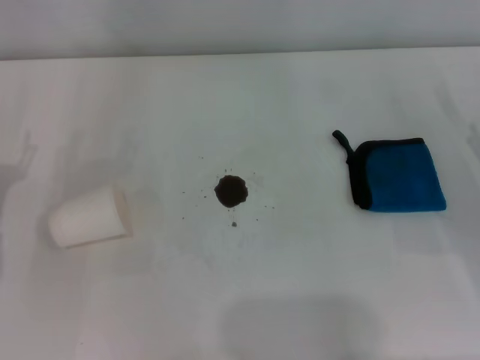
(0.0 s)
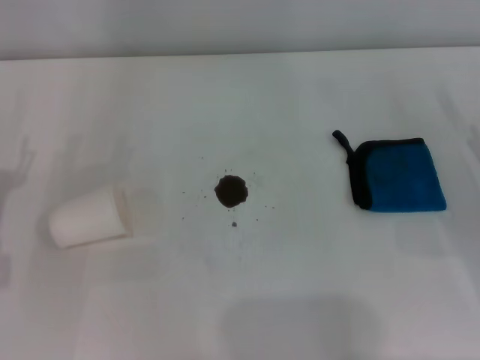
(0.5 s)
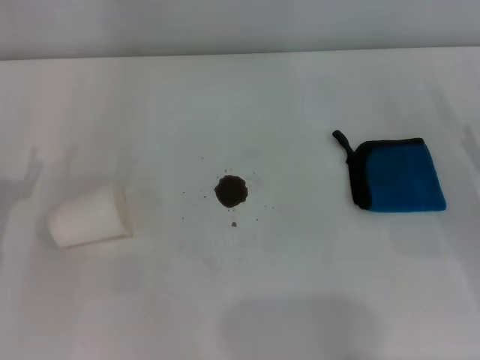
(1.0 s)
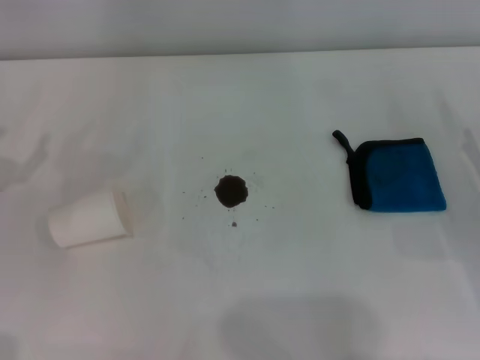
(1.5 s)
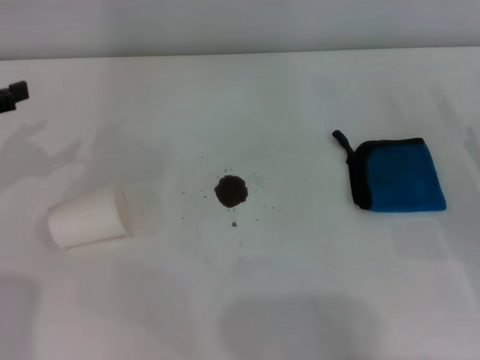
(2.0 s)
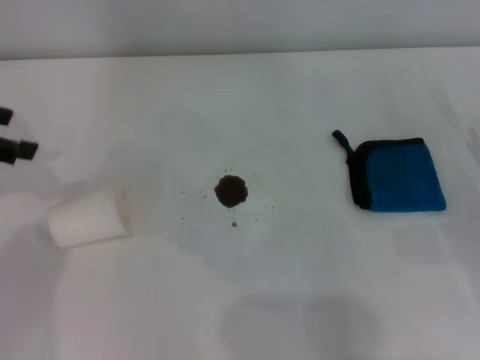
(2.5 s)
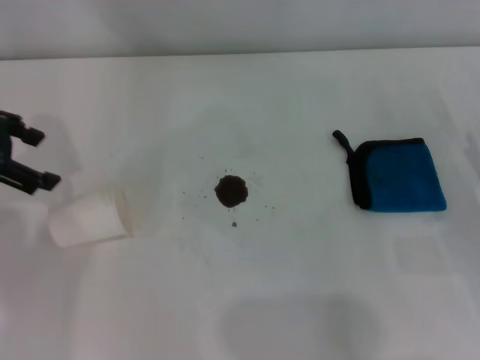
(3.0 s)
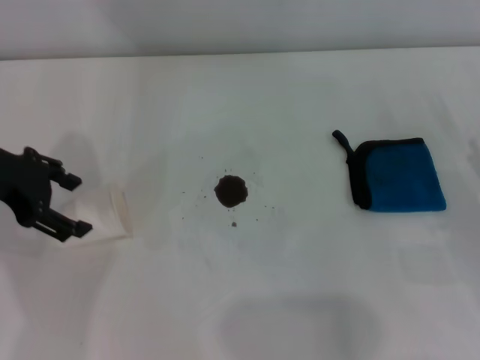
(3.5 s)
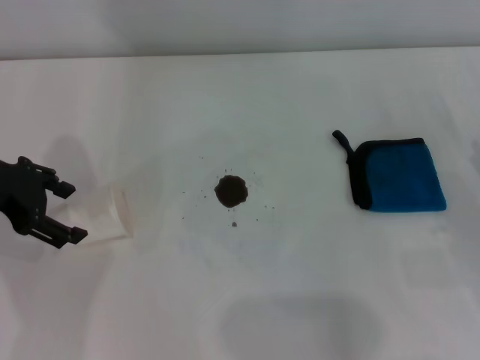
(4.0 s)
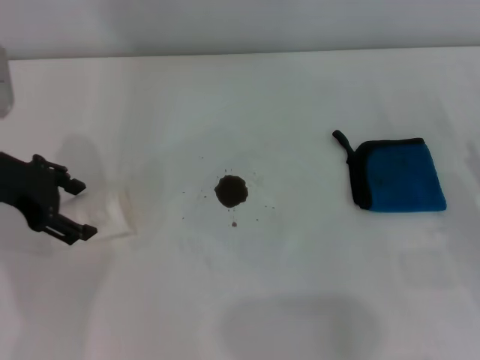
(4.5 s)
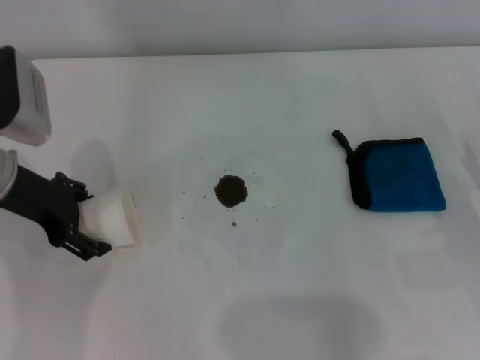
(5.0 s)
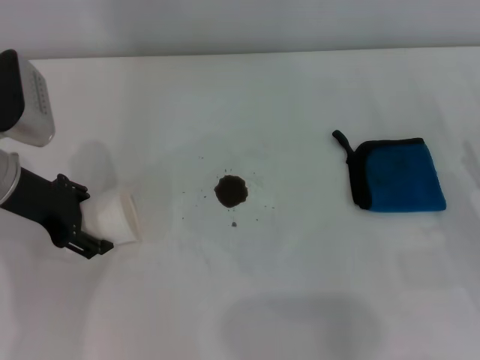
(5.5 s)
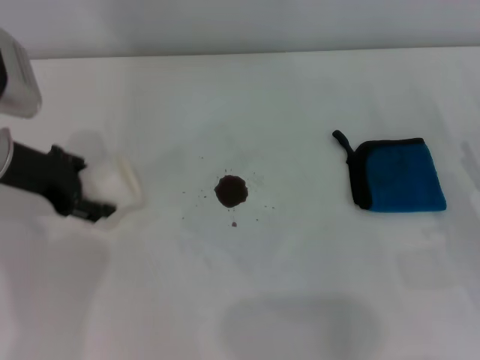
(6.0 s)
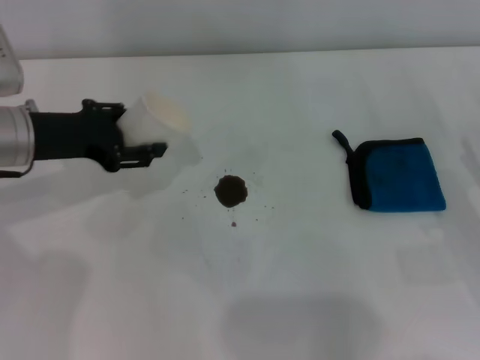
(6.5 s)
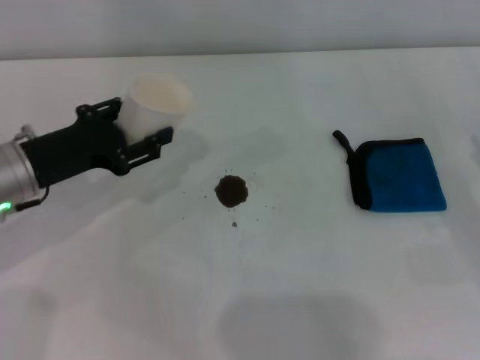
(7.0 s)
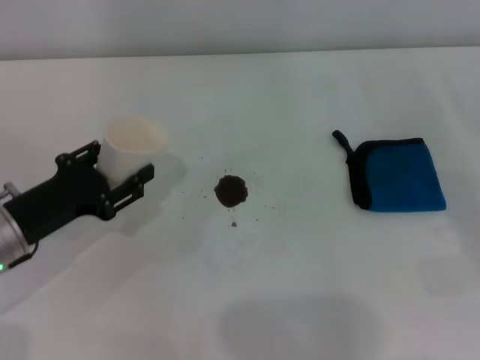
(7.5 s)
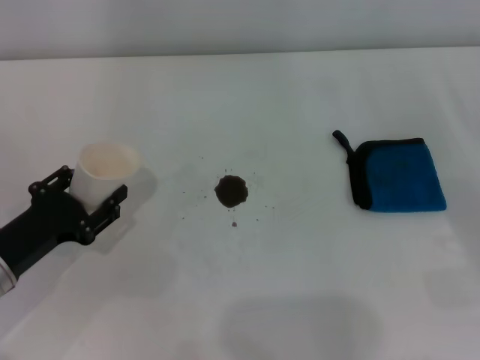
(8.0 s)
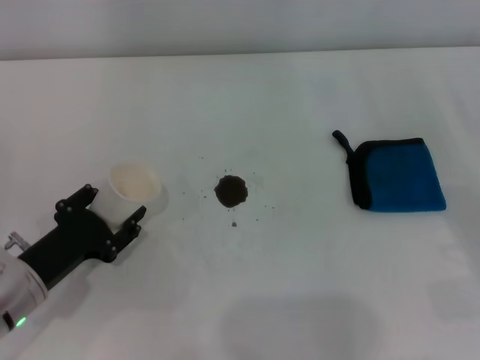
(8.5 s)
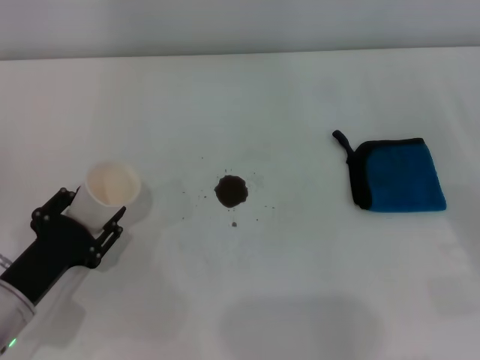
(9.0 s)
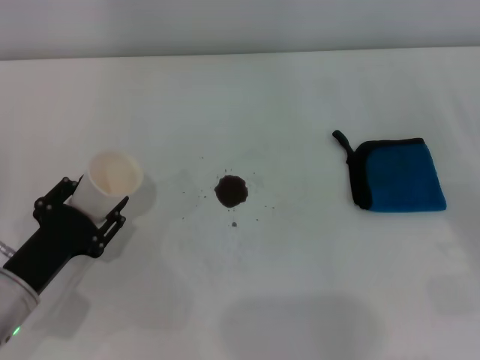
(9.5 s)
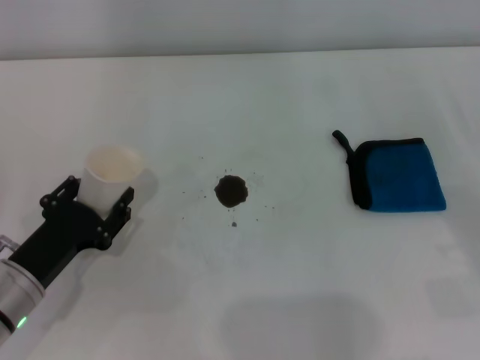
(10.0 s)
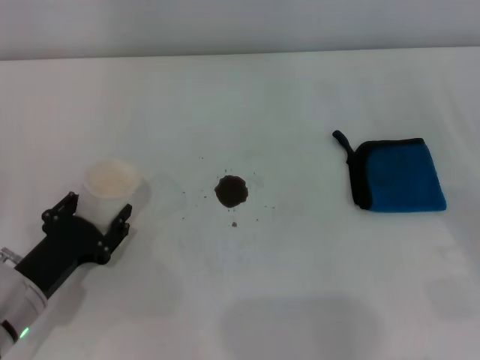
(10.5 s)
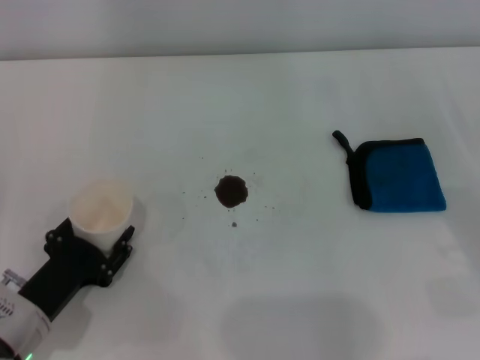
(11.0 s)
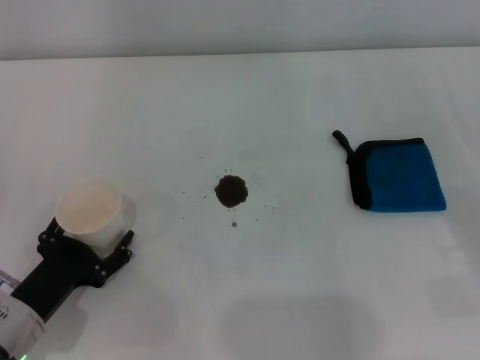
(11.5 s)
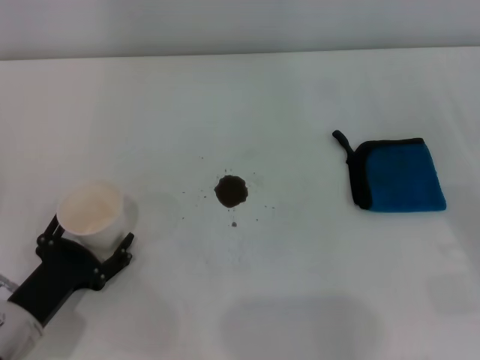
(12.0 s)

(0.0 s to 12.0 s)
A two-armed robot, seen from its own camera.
Step, 0.0 s - 5.5 s: Grasp the paper cup with the left gripper.
Step, 6.0 s - 11.5 s: Stand the paper cup upright with the left gripper.
2.0 s - 4.0 s: The left gripper travels to the right by approximately 10 cm.
4.0 s - 6.0 s: The grippers stay close to where they were, moving slightly.
6.0 s - 8.0 s: The left gripper shifts roughly 15 cm backward and downward, and closes.
8.0 s - 10.0 s: The grippers move only a little.
10.0 s - 12.0 s: The left gripper opens up.

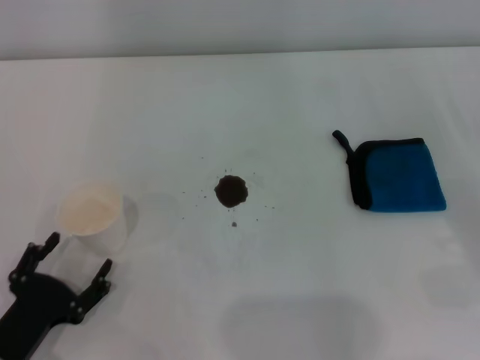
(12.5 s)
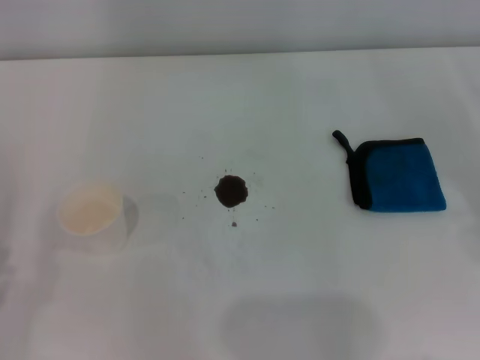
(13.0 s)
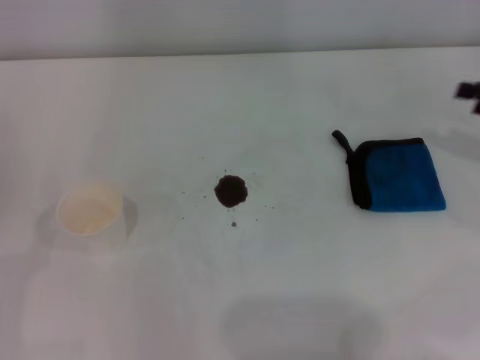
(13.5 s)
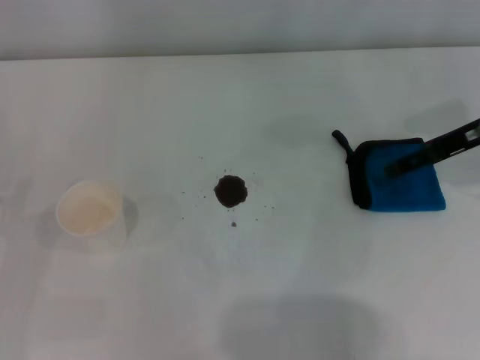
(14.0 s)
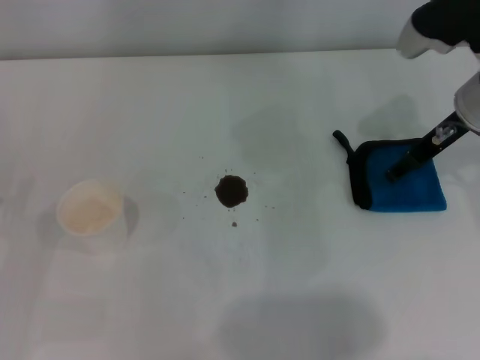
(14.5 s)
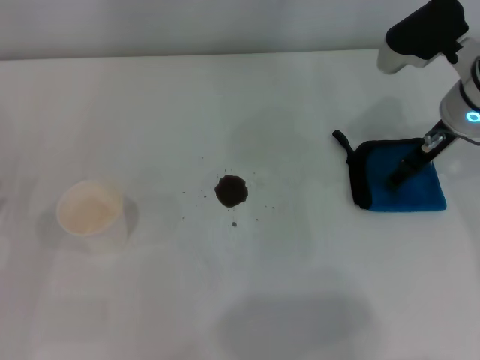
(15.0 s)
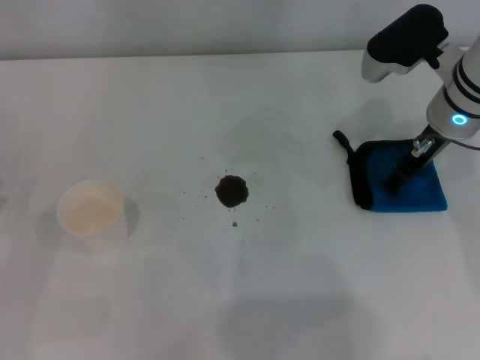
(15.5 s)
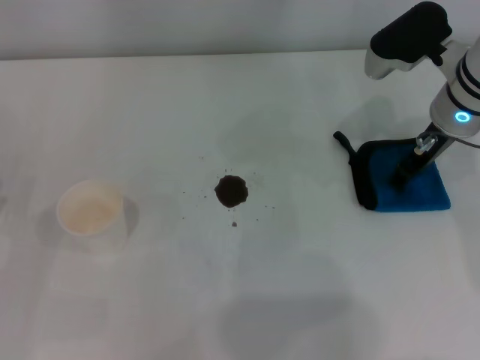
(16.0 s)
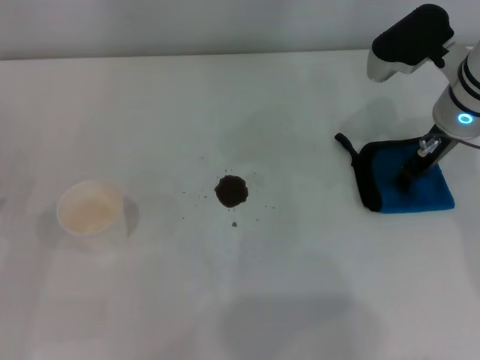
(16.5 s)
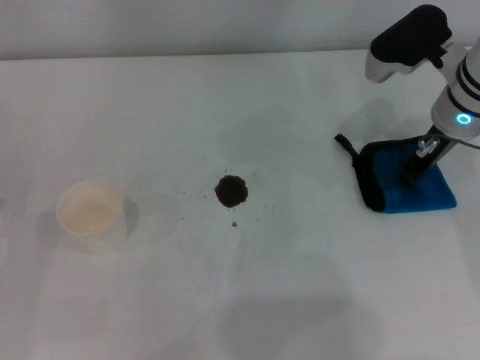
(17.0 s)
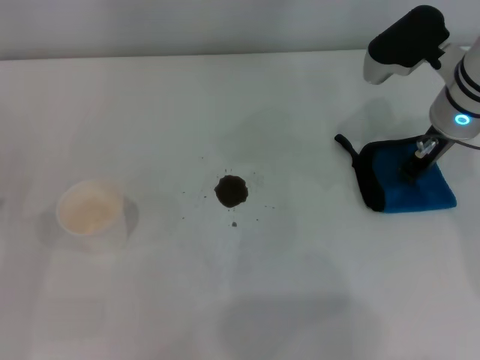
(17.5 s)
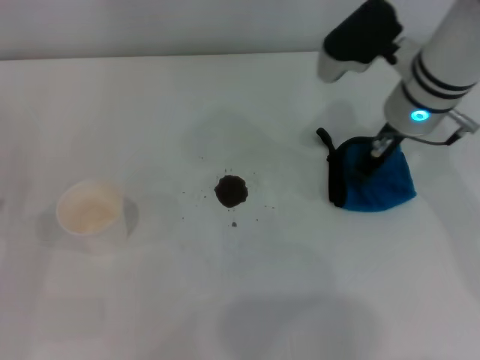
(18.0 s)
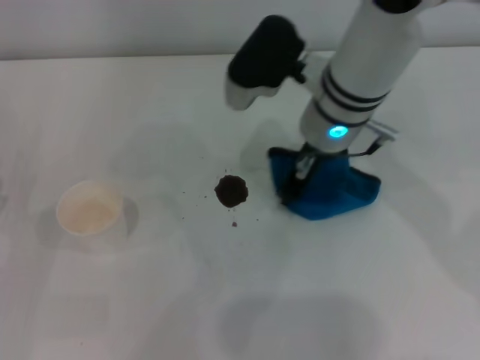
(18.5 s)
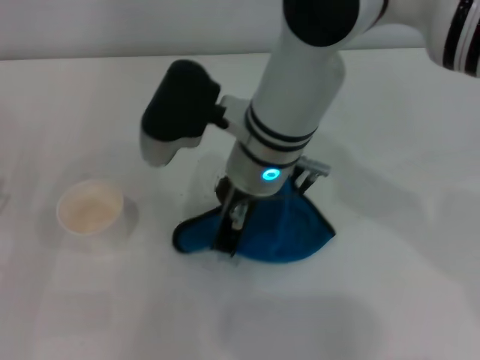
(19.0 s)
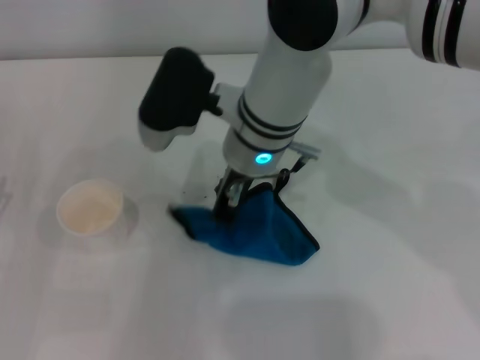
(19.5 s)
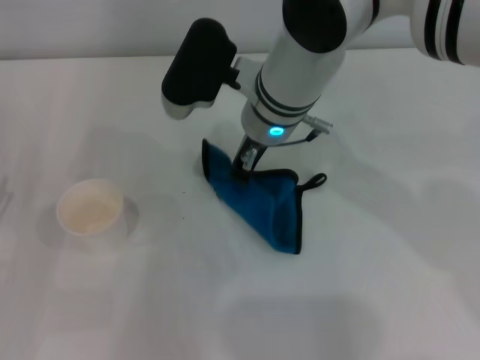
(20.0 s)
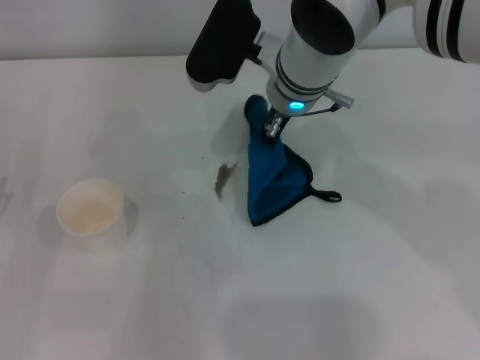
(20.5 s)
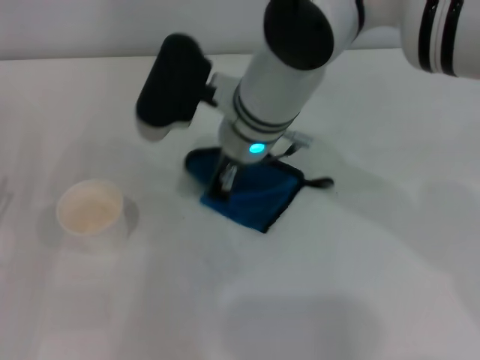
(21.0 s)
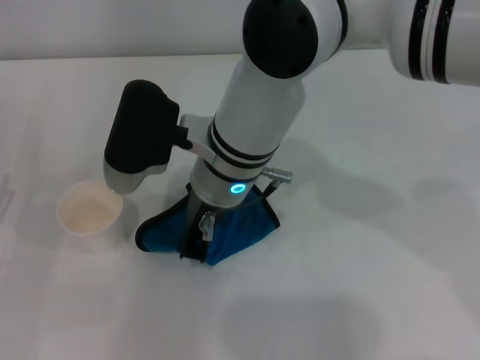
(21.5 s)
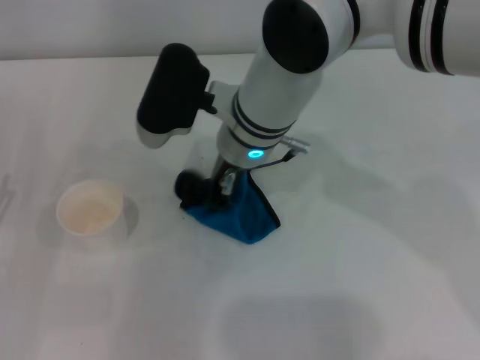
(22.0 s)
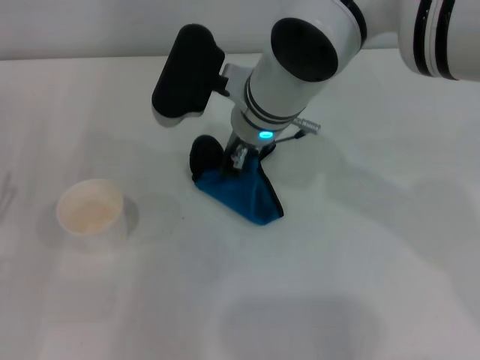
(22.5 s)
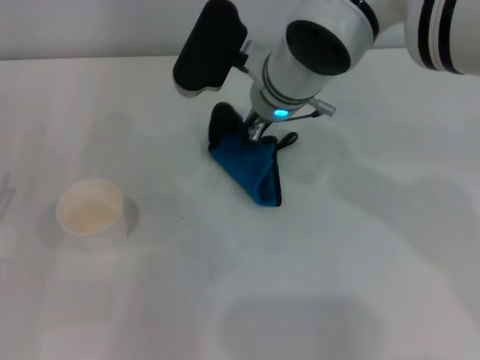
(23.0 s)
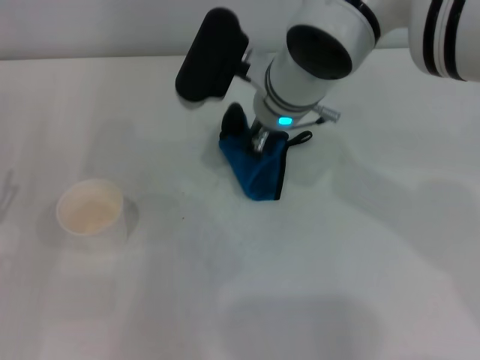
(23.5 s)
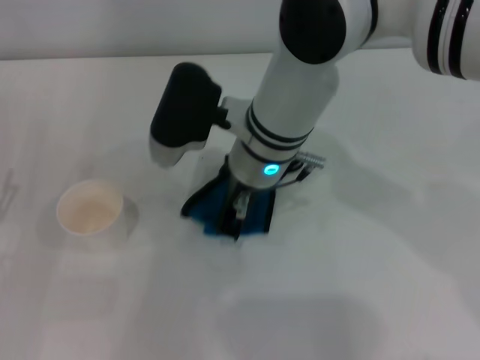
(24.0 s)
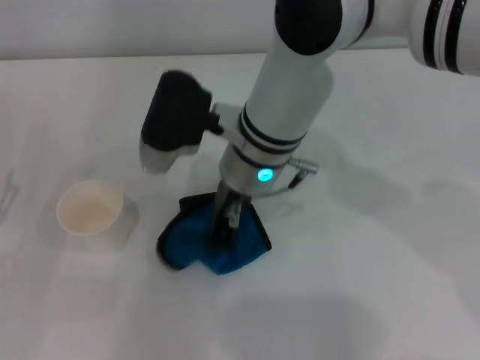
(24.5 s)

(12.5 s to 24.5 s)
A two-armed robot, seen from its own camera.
Step, 12.5 s - 17.0 s: Grasp the rag with the right gripper.
12.5 s - 14.5 s: The right gripper goes about 25 cm forward, to the left and upward; the left gripper moves to the left, upward and forward, some 10 cm.
14.5 s - 16.5 s: The right gripper closes up.
16.5 s - 18.5 s: The right gripper goes about 15 cm to the left, and closes its fingers.
20.5 s - 22.5 s: The right gripper moves some 10 cm backward and comes back.

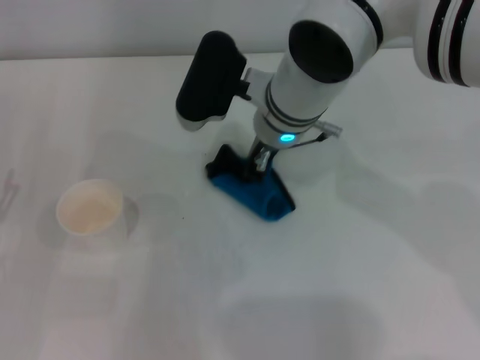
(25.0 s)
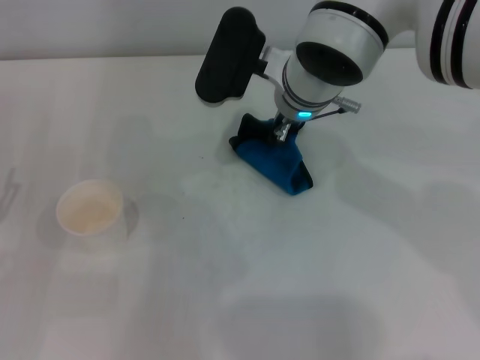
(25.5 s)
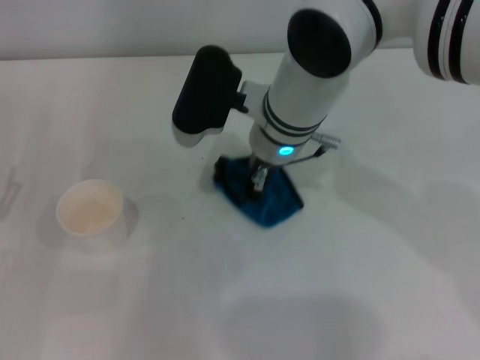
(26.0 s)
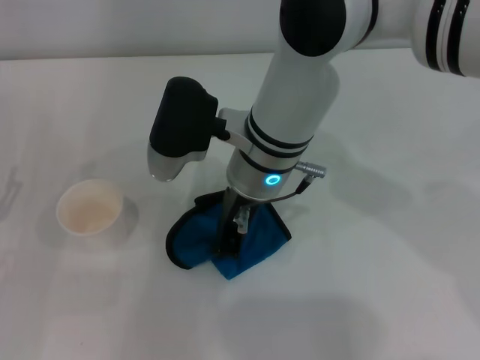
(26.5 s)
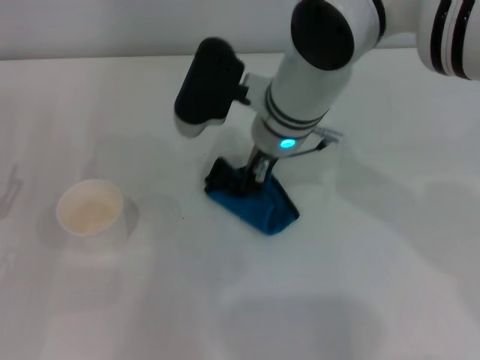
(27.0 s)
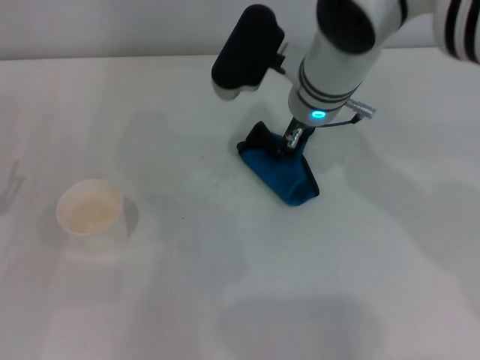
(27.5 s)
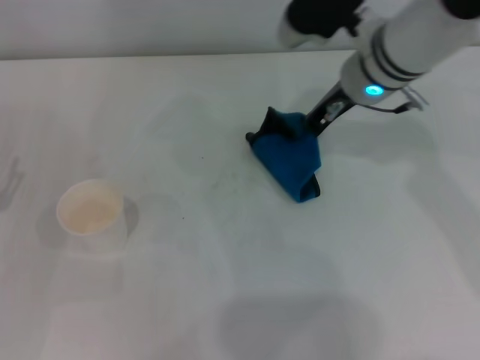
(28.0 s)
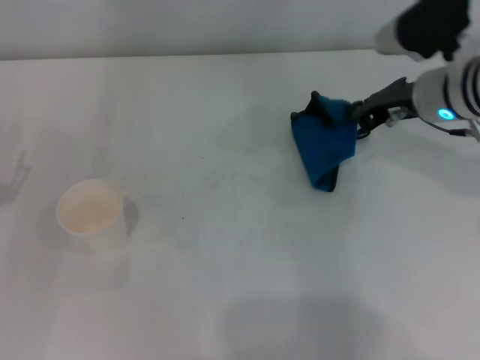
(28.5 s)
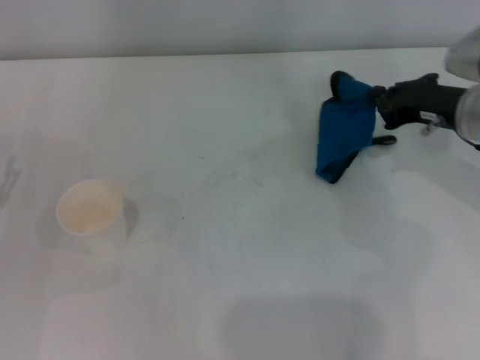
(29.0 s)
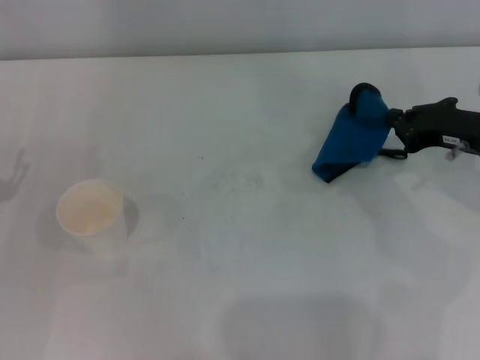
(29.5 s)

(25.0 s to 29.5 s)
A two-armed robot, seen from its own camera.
27.0 s - 29.5 s: The right gripper shifts about 25 cm to the right.
